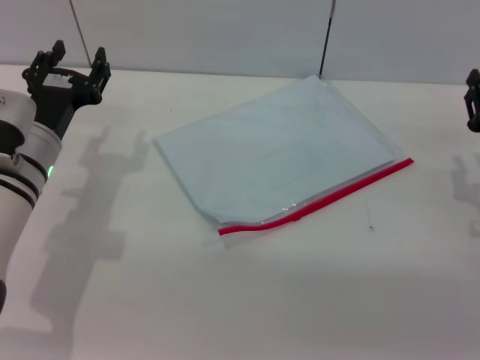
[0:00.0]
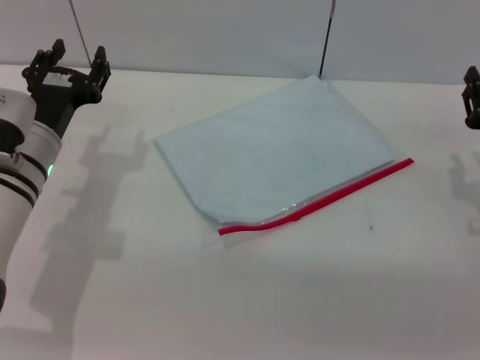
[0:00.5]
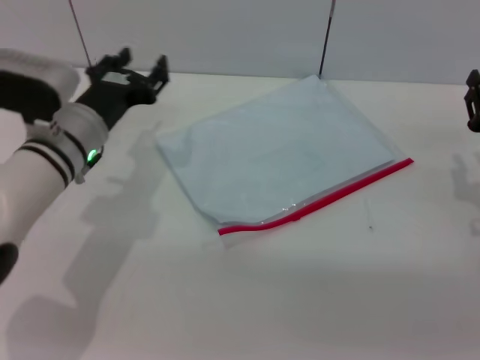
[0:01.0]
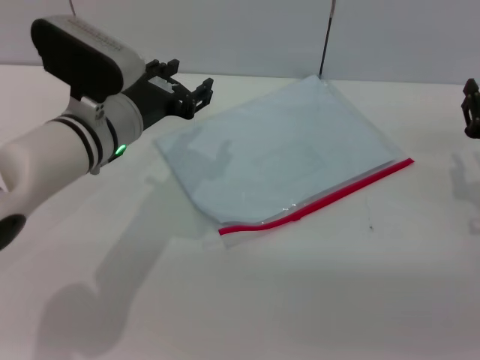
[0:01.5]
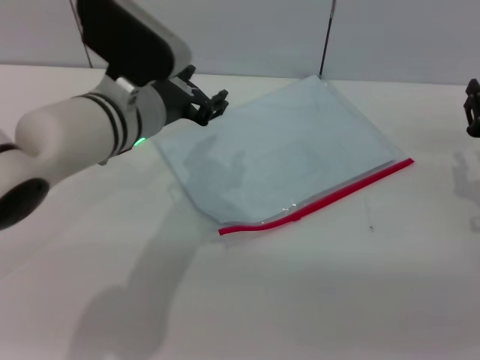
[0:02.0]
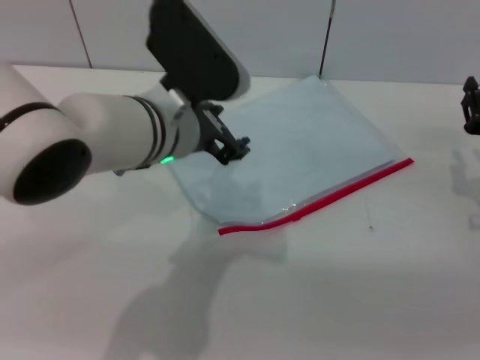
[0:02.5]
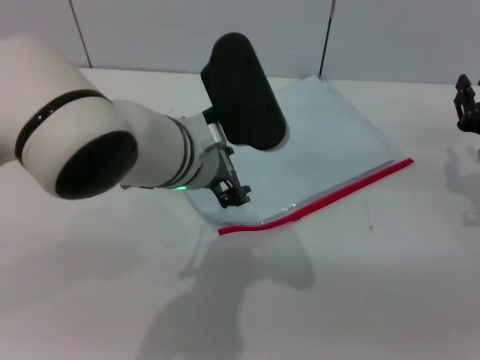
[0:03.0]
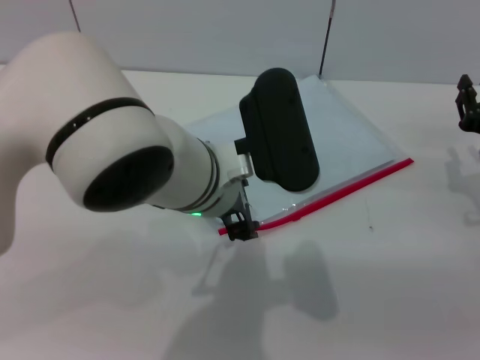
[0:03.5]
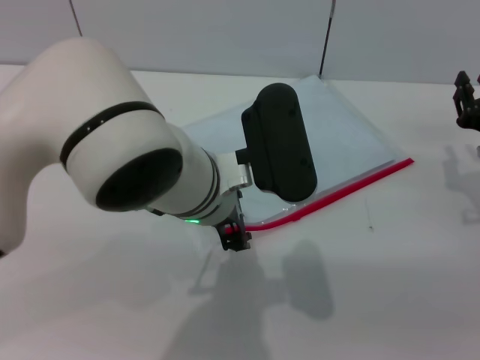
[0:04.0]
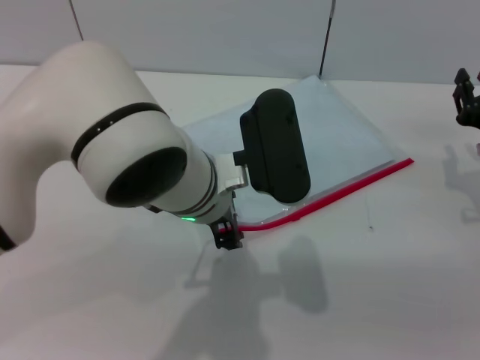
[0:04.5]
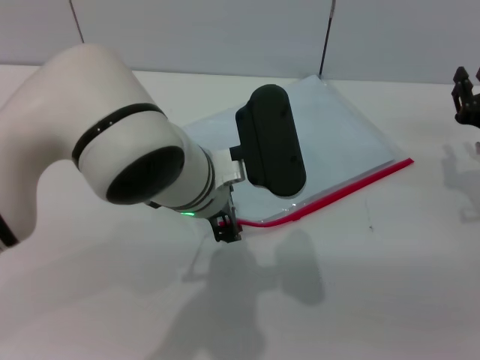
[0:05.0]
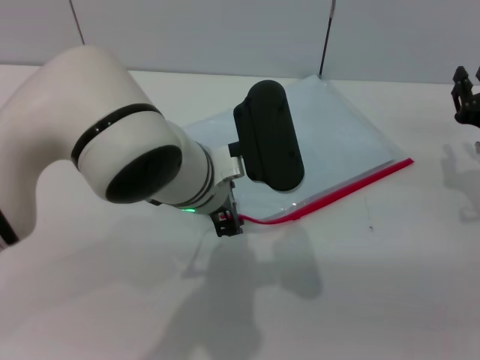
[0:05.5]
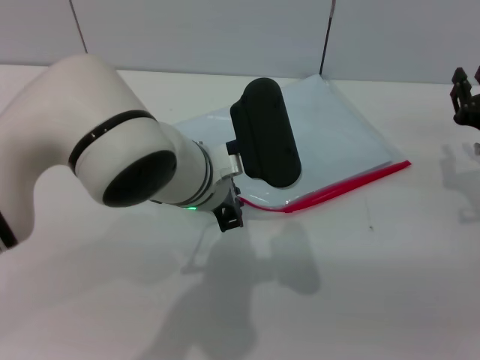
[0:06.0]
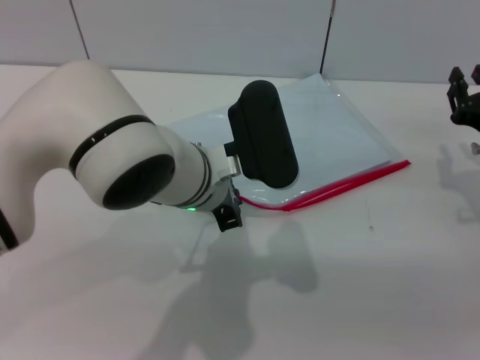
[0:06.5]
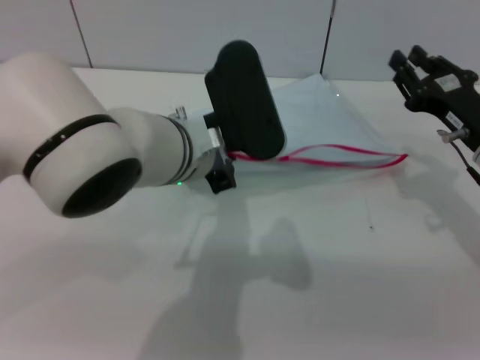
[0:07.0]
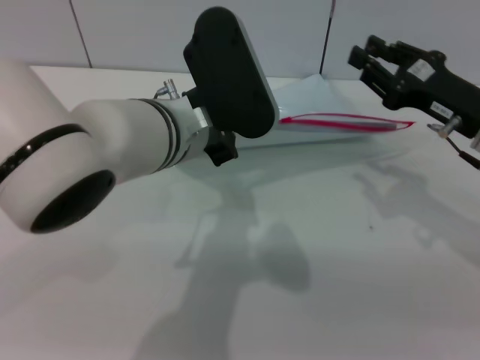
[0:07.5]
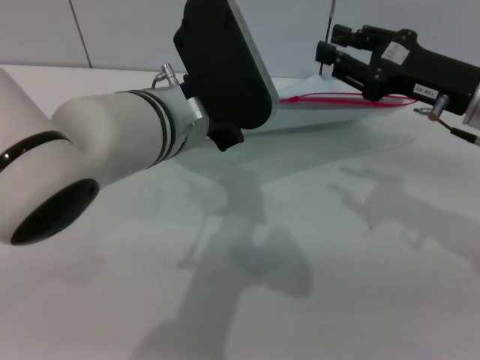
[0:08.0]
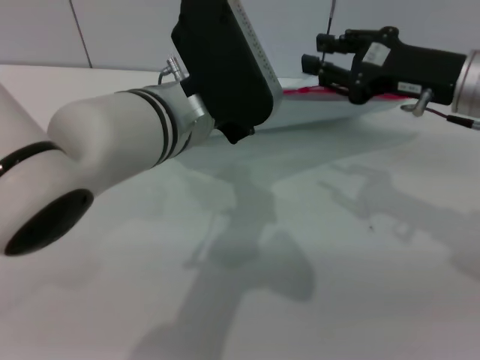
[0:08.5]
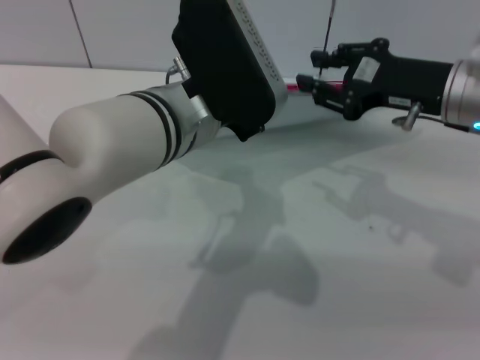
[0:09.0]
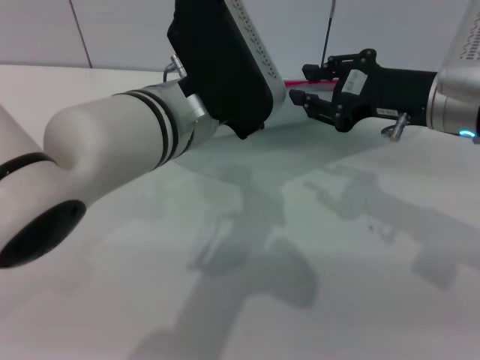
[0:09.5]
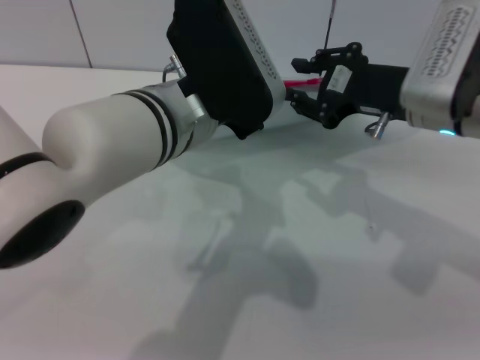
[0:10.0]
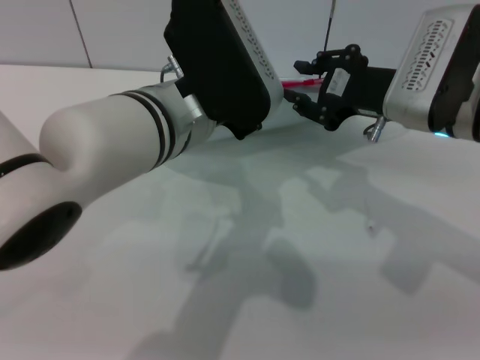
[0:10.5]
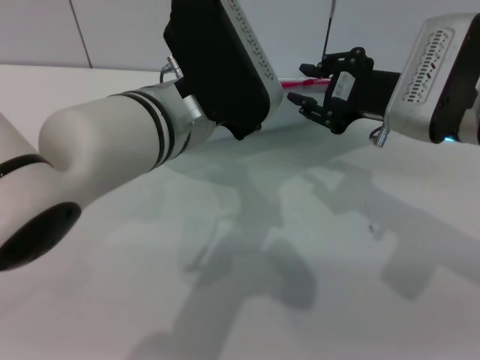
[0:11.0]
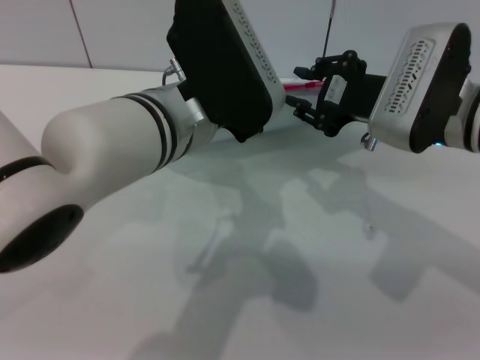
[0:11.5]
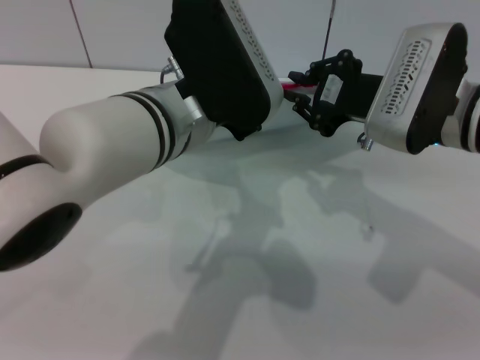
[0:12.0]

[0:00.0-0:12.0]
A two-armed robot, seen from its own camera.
Step, 0:00.0 to 0:07.5: Pick up the transparent plastic bag with the left gripper.
0:00.0 to 0:02.0: The left gripper moves to the right and upward, roughly 15 cm.
0:02.0 to 0:04.0: The left gripper is displaced to the right and backward by roughly 10 cm.
0:04.0 to 0:06.0: The left gripper closes up.
0:06.0 to 0:08.0: The right gripper heads upward and to the left, covering roughly 10 cm; the left gripper is displaced upward by about 5 cm, and closes.
0:08.0 to 0:10.0: The right gripper goes some 5 cm to the left.
0:10.0 to 0:12.0: There are only small adjustments of the grippers.

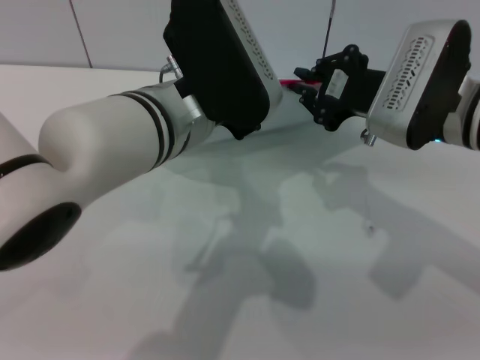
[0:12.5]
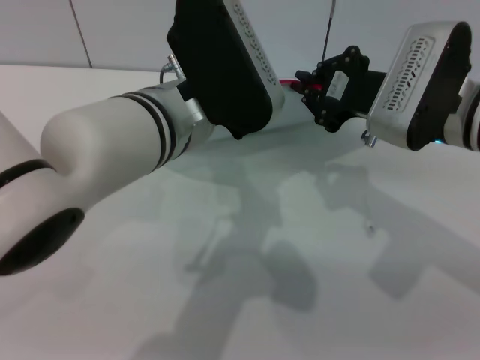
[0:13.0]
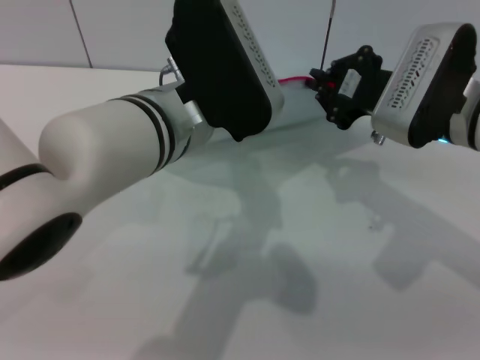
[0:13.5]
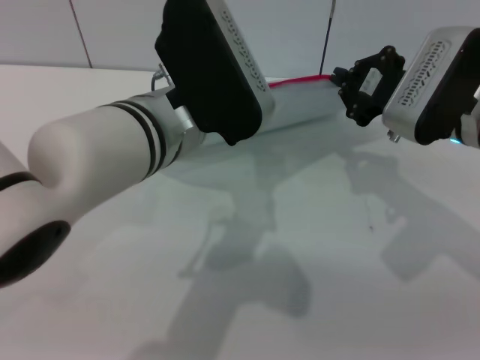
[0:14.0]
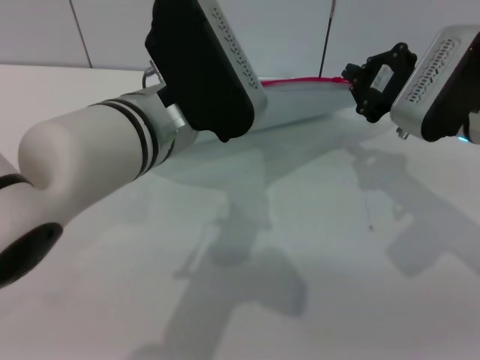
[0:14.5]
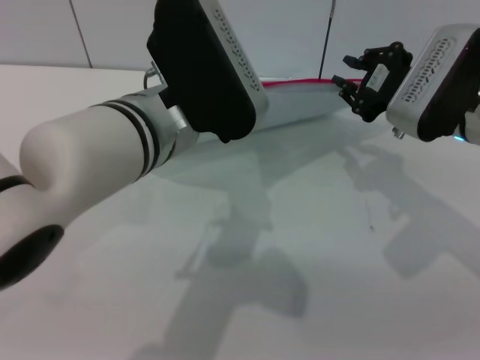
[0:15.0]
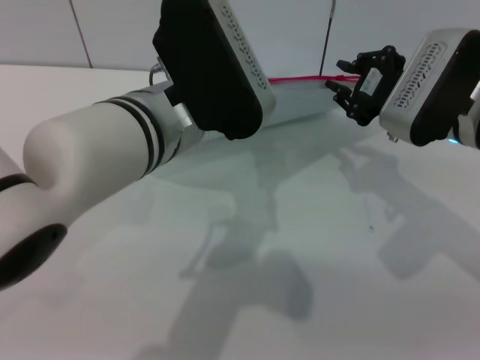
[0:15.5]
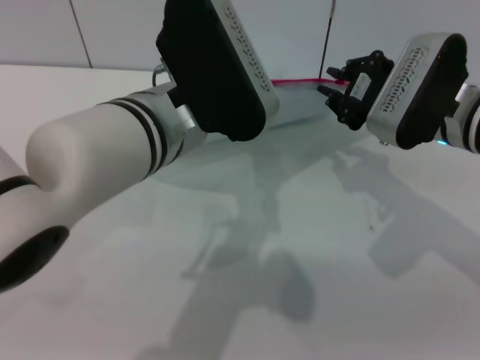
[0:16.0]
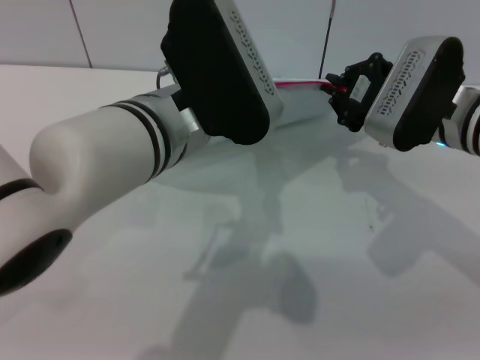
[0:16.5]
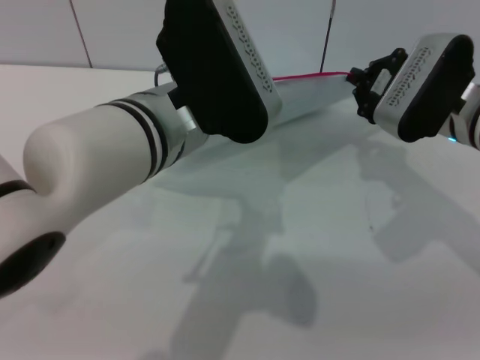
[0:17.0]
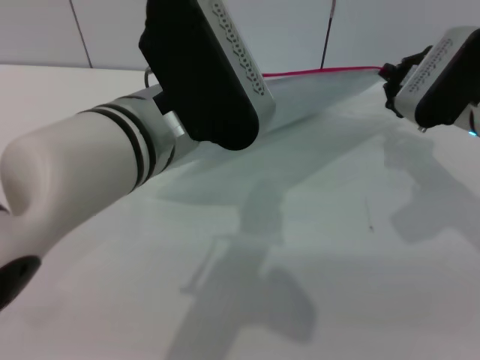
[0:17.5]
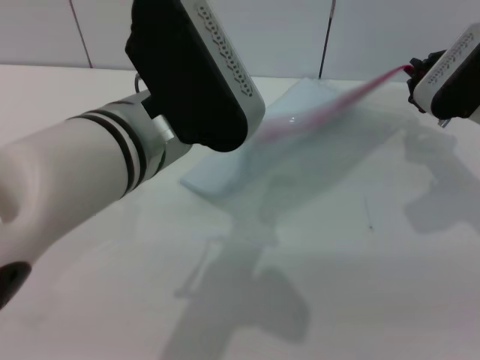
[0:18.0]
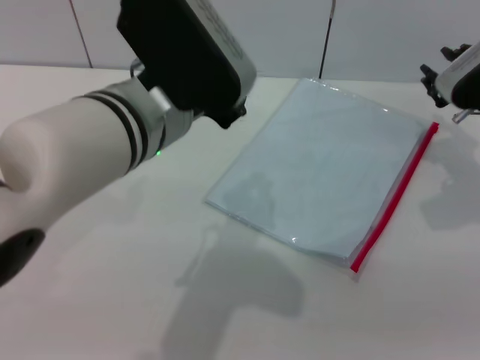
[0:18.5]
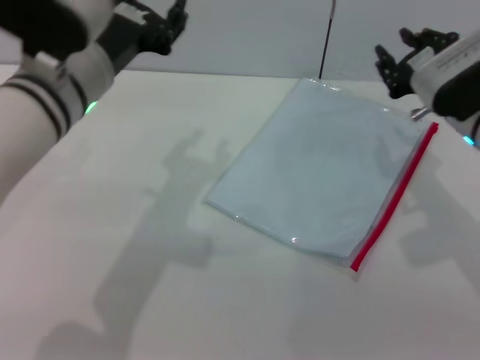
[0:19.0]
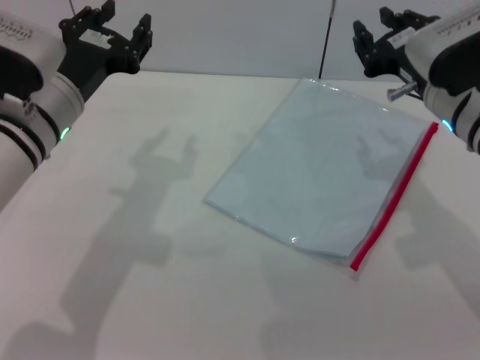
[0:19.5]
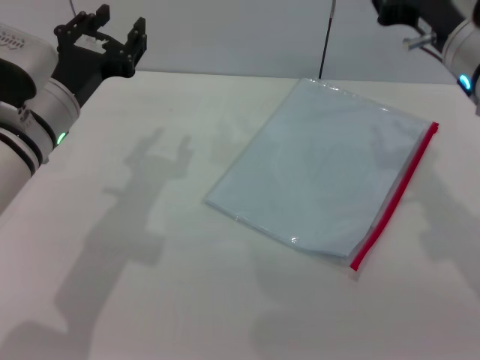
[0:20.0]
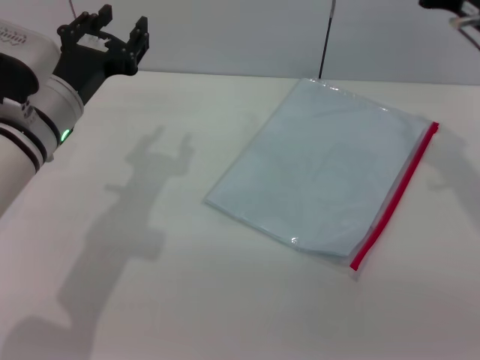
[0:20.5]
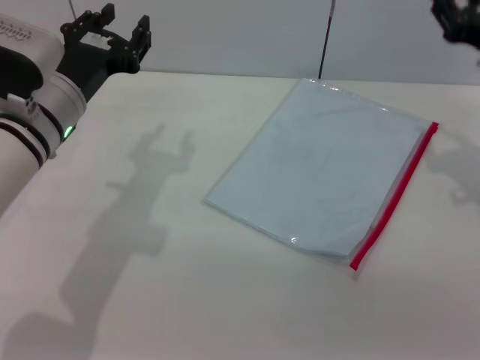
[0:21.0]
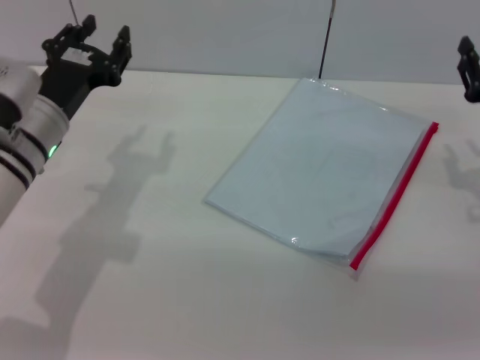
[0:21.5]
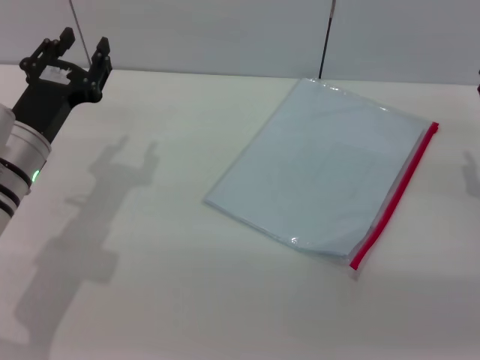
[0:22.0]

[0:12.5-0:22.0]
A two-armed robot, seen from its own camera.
Step, 0:12.5 to 0:17.5: Pulling up the zipper on the transparent plastic bag with the right gripper to close it.
Step, 0:18.0 to 0:18.5: Place the transparent plastic bag.
0:12.5 to 0:14.5: The grippers move only a little.
0:14.5 to 0:16.5: The right gripper opens, then closes once more.
0:16.5 to 0:18.0: The right gripper shifts some 5 cm to the right.
0:18.0 to 0:20.0: The left gripper heads to the left, downward and forward, covering approximately 15 cm, and opens its fingers. The right gripper moves upward and to the left, some 10 cm, and opens its fingers.
0:20.0 to 0:22.0: The right gripper is displaced to the right and downward by some 20 cm. Meanwhile the left gripper is displaced downward by roughly 5 cm.
